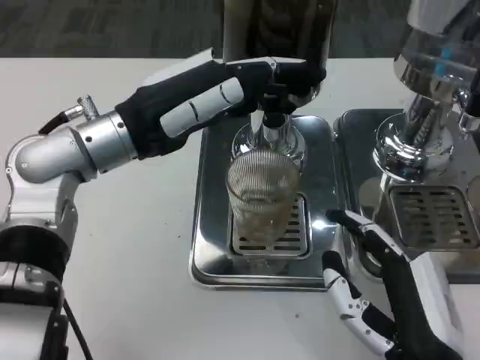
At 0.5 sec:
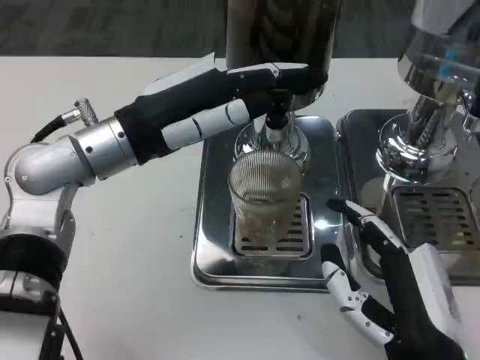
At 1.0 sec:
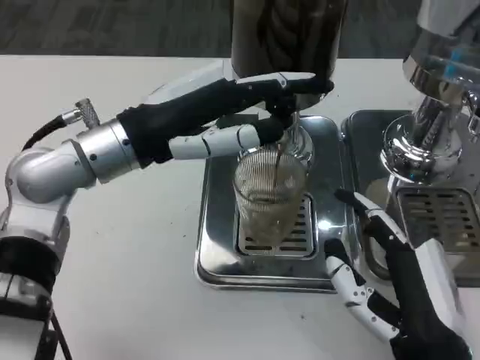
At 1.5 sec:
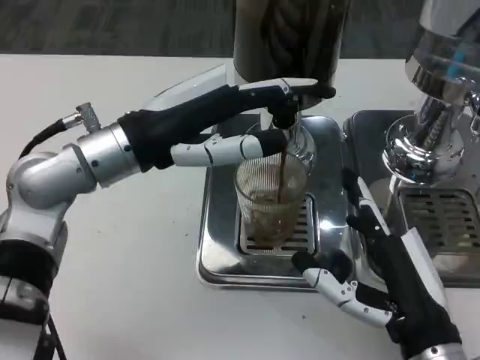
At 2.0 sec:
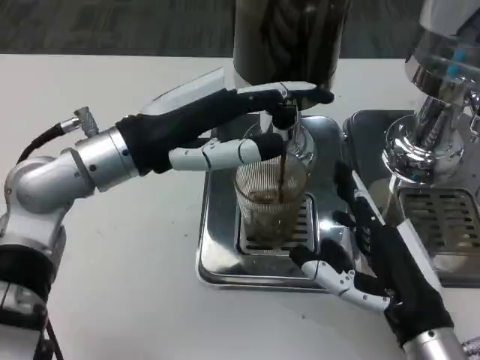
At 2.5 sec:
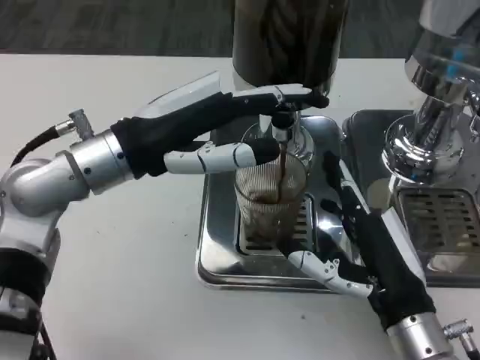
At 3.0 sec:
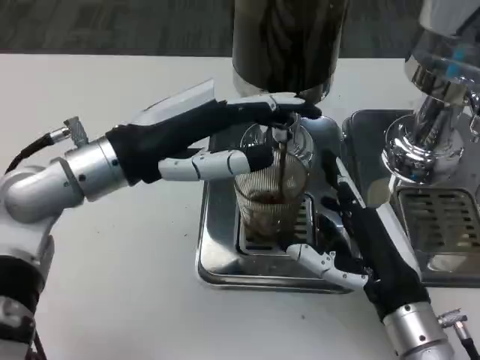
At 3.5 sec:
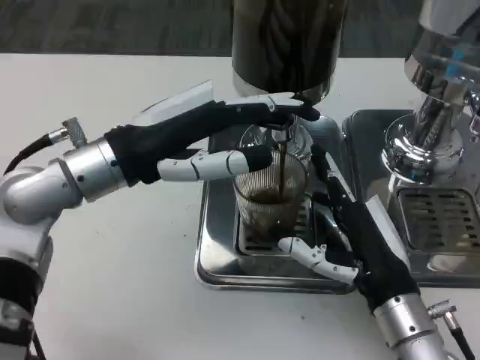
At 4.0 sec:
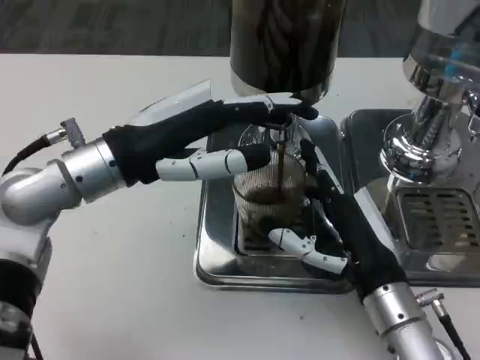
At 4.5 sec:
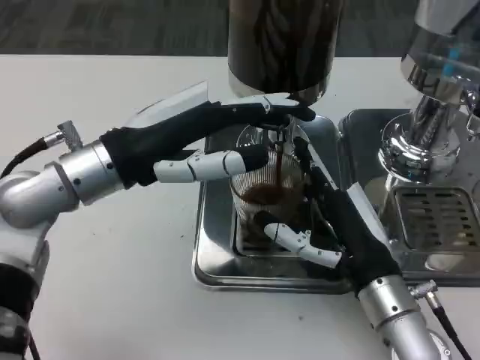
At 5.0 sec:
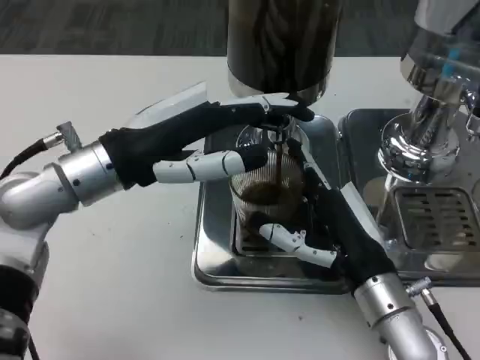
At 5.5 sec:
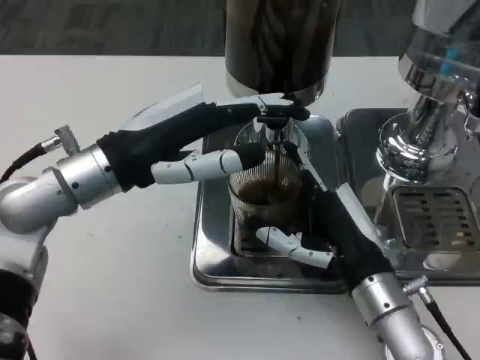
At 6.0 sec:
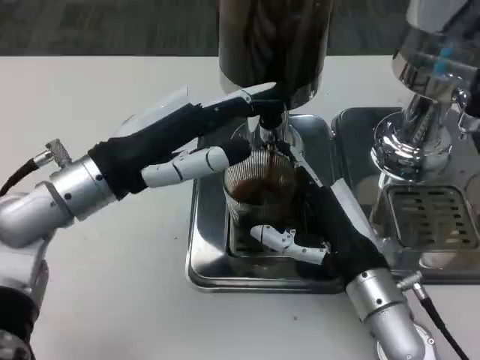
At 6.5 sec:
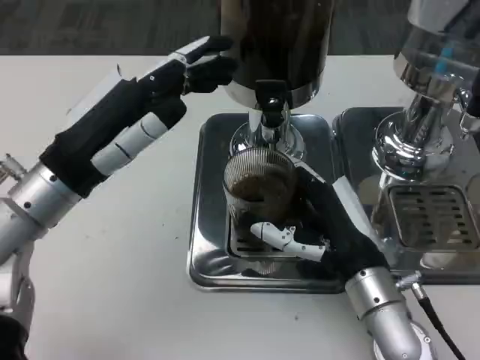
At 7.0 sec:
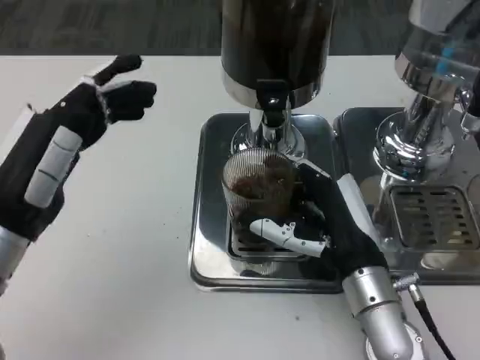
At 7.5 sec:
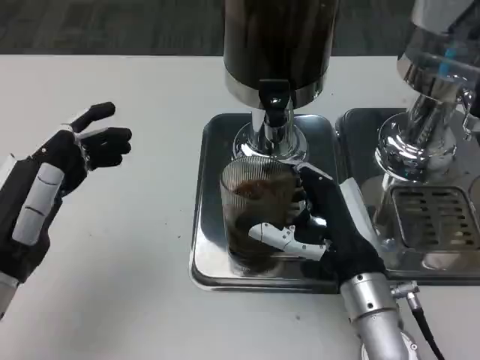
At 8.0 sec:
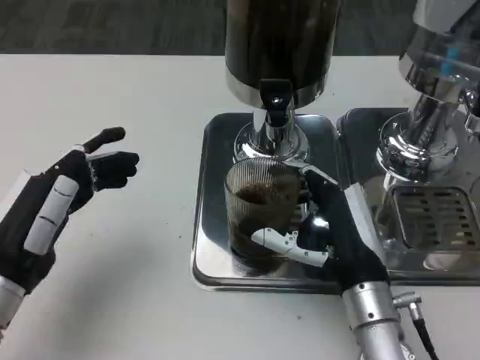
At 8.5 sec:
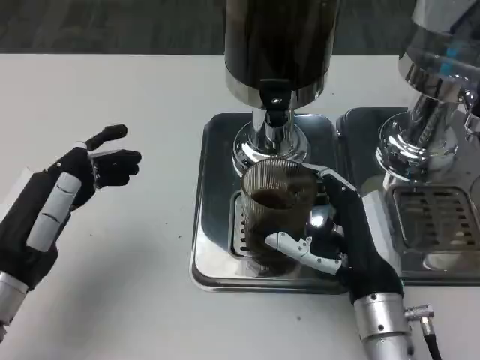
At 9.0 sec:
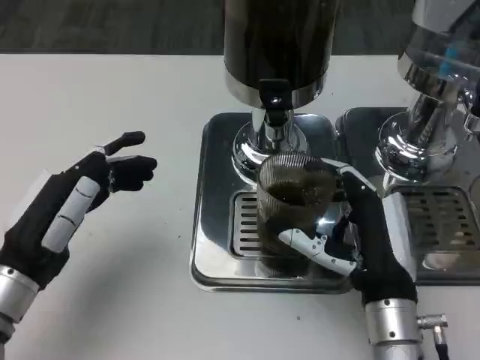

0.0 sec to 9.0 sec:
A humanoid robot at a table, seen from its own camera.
Task of the whole recording: Grasp the cup under the faucet to collect the drink, then remove the cup.
0.0 sec to 2.0 sec: The right hand travels forward by some 5 cm.
2.0 sec to 4.5 sec: The right hand heads forward, covering approximately 5 cm.
4.5 sec to 7.0 sec: The left hand is displaced backward, to the left and downward by roughly 10 cm.

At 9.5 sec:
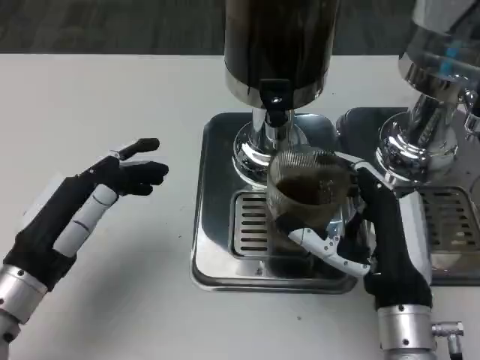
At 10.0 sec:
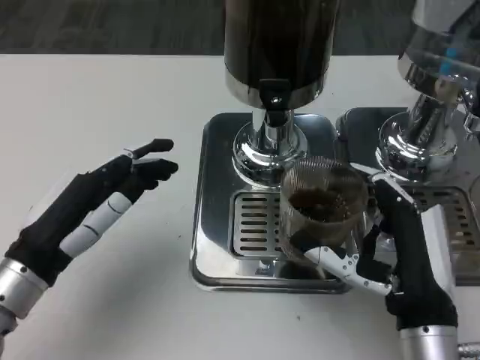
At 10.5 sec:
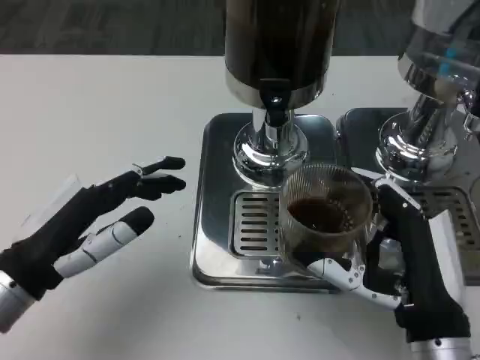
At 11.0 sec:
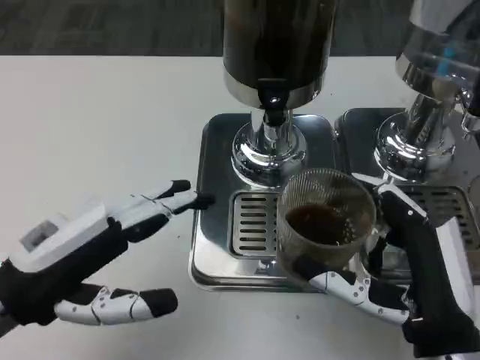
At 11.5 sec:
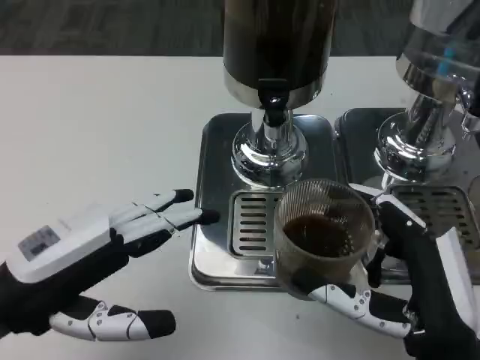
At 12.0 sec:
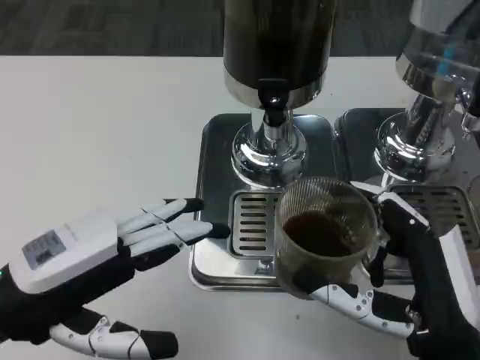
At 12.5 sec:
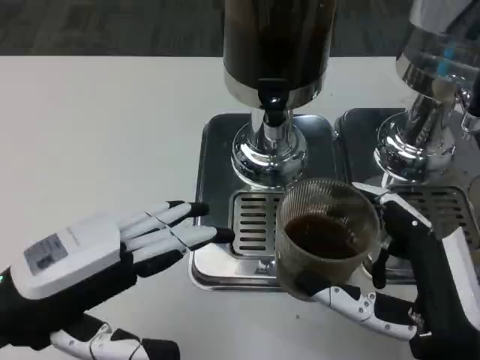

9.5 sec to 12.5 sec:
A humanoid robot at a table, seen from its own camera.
Task of the whole recording: Grasp the cup under the faucet to collect the drink, then remove the cup.
9.5 sec to 11.0 sec: The right hand is displaced backward by approximately 5 cm, while the left hand shifts about 5 cm upward.
11.0 sec to 12.5 sec: The hands make only small movements.

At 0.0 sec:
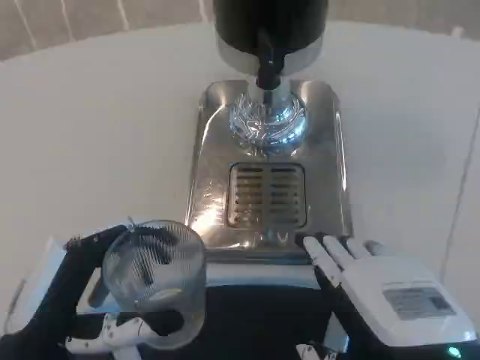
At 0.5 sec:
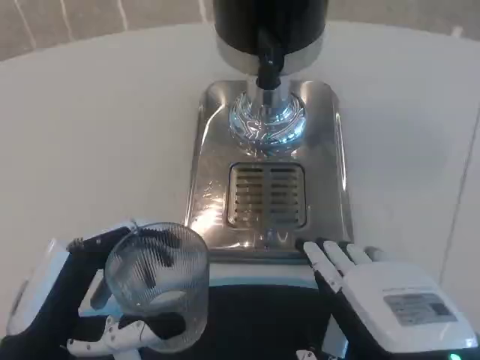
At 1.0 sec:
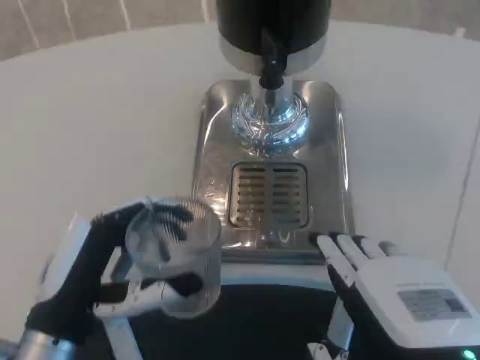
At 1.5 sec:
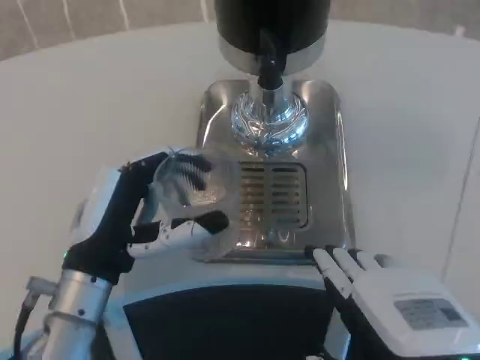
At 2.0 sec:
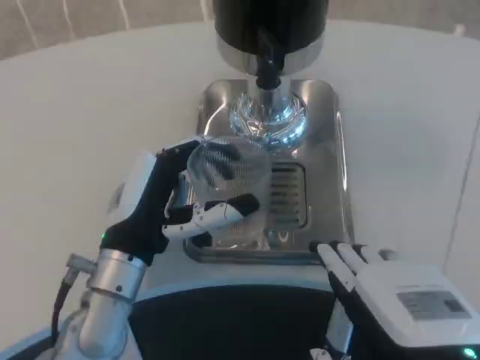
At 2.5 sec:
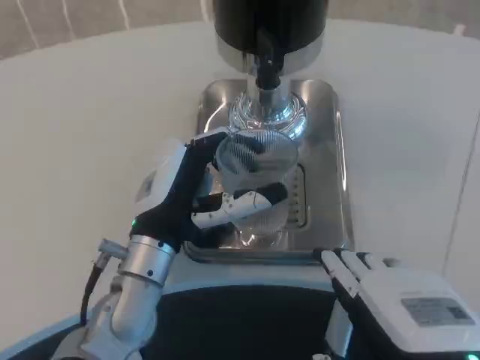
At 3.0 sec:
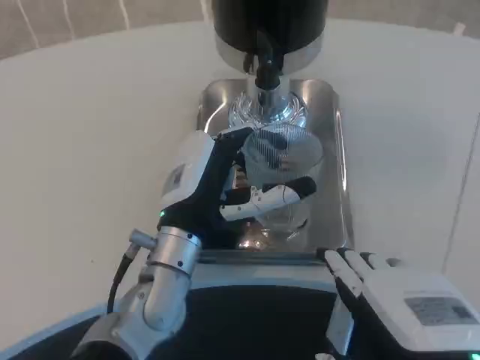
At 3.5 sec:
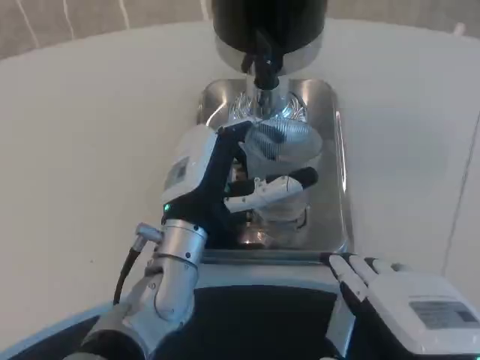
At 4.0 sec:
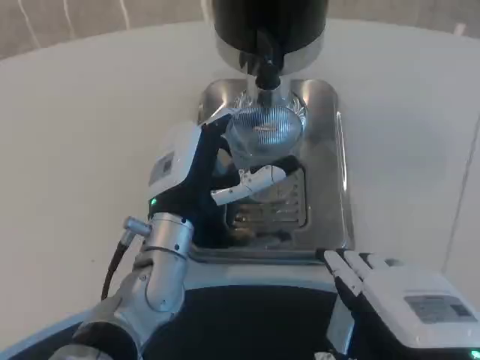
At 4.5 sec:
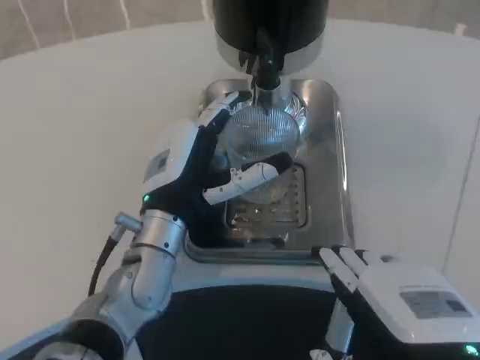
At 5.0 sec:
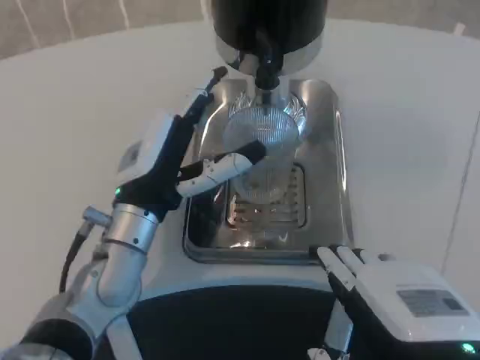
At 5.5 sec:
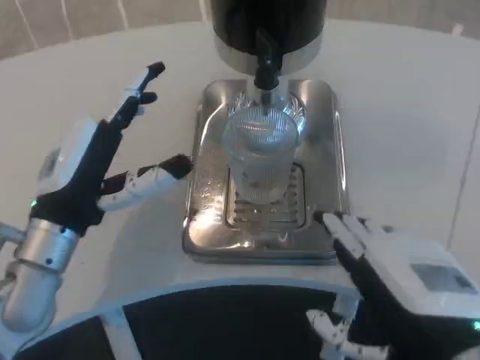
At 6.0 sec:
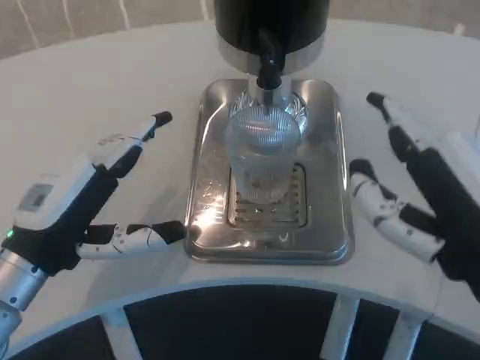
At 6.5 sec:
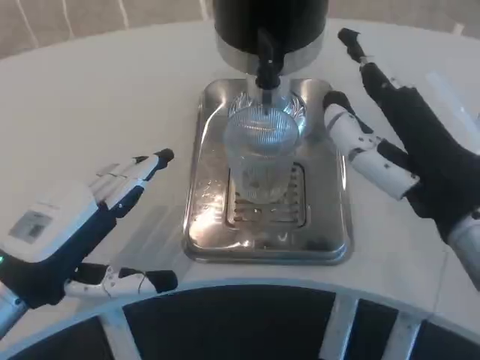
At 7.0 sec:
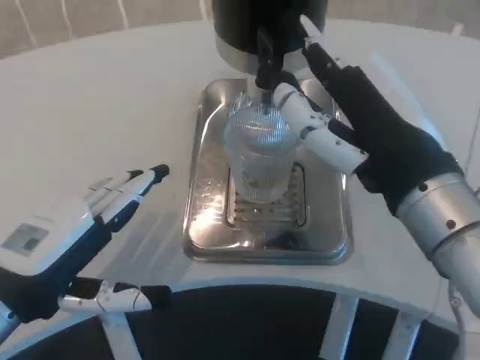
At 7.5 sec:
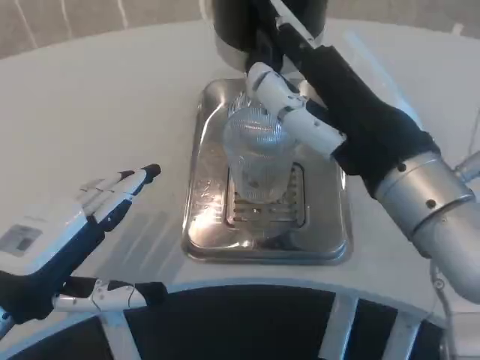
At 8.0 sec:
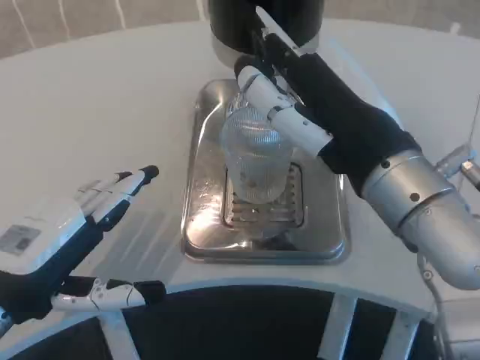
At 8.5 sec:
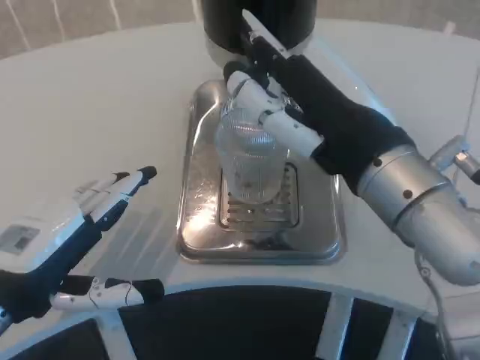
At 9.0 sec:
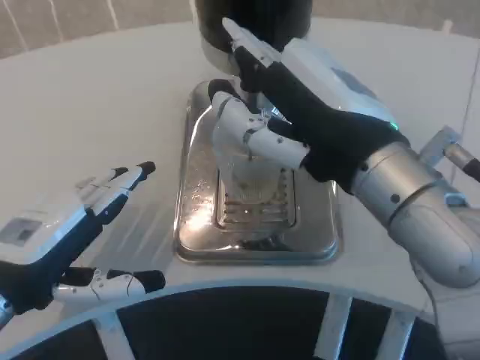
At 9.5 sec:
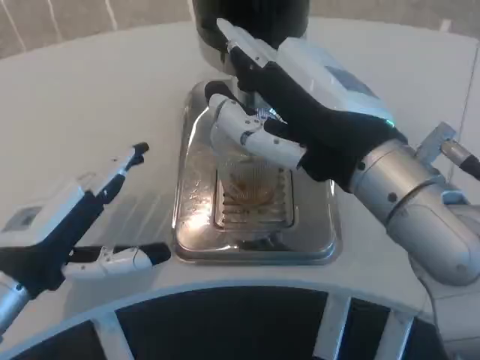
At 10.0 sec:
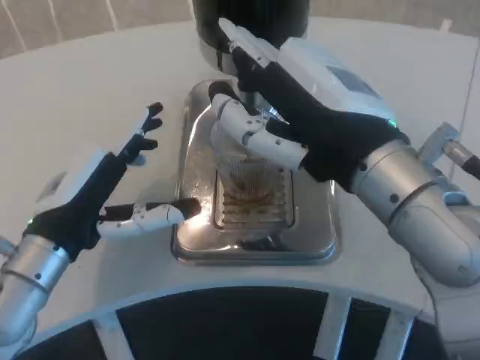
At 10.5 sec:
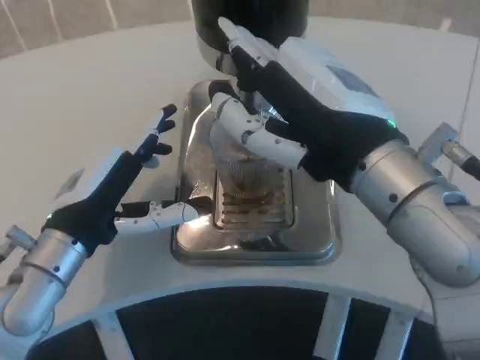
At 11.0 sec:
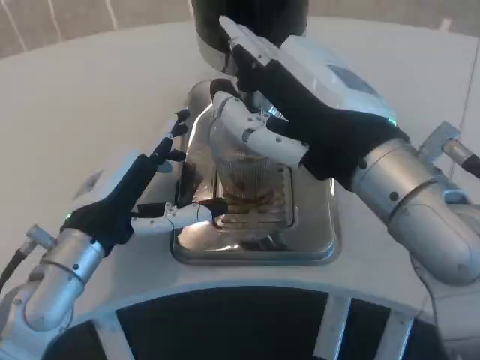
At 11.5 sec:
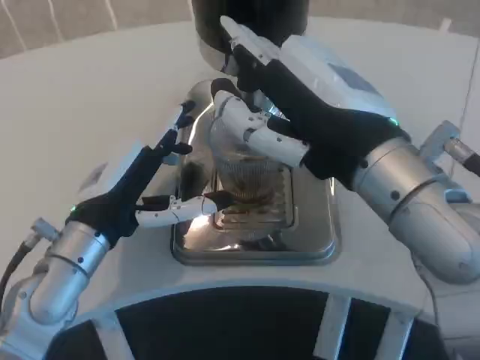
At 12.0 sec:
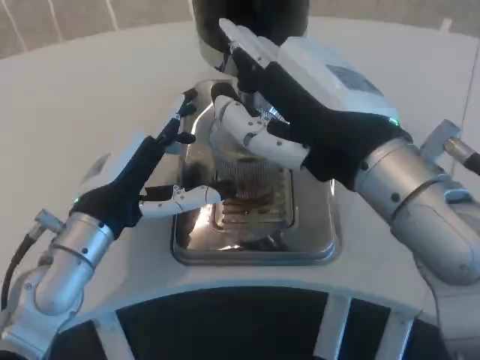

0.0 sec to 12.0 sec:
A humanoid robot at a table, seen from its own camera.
Task of the whole recording: Grasp the cup under the faucet to collect the drink, then remove the cup.
0.0 sec to 2.0 sec: The left hand travels forward and to the right by approximately 15 cm.
2.0 sec to 4.0 sec: The left hand is displaced to the right by about 5 cm.
4.0 sec to 6.0 sec: The left hand heads to the left and backward, covering approximately 15 cm, while the right hand moves about 5 cm.
6.0 sec to 8.0 sec: The right hand shifts roughly 5 cm forward.
8.0 sec to 10.0 sec: The left hand moves forward, approximately 5 cm.
10.0 sec to 12.0 sec: The hands move only a little.

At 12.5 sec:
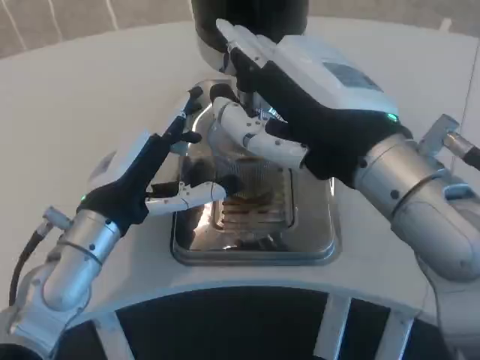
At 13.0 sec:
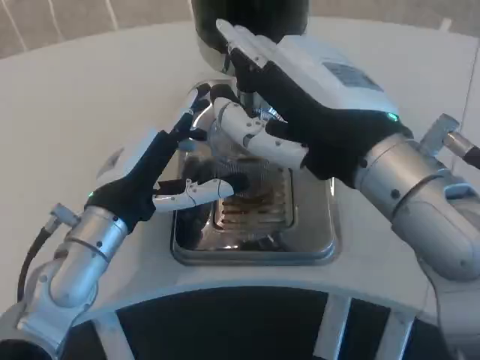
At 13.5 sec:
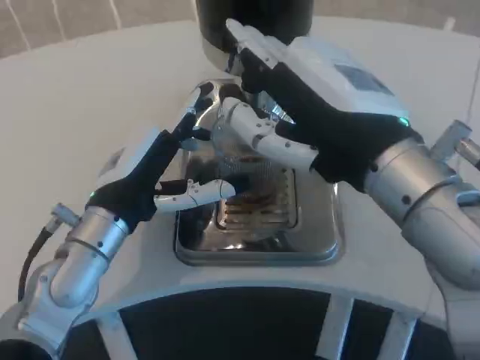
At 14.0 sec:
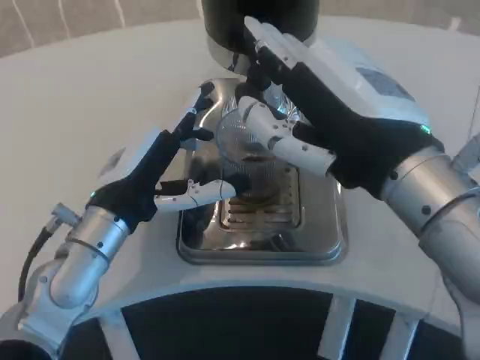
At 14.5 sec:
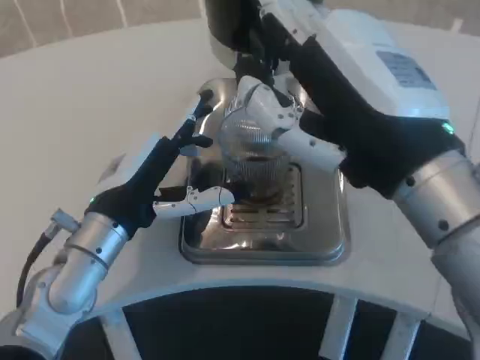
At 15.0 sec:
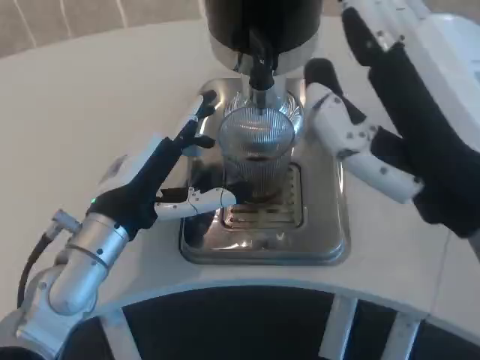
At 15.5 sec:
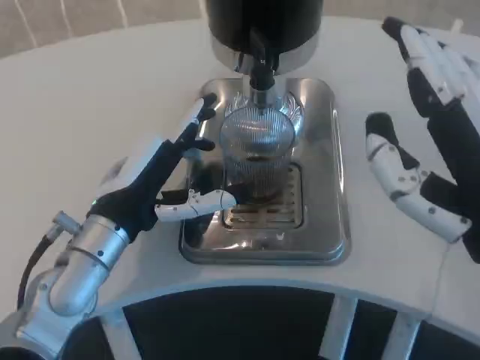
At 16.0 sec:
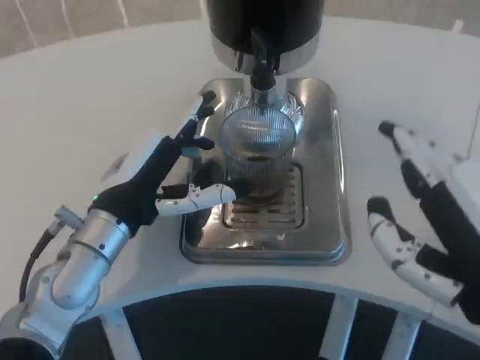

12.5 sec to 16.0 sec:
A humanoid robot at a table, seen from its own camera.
Task of the whole recording: Grasp the cup under the faucet to collect the drink, then remove the cup.
14.5 sec to 16.0 sec: The right hand shifts some 10 cm backward and downward.
